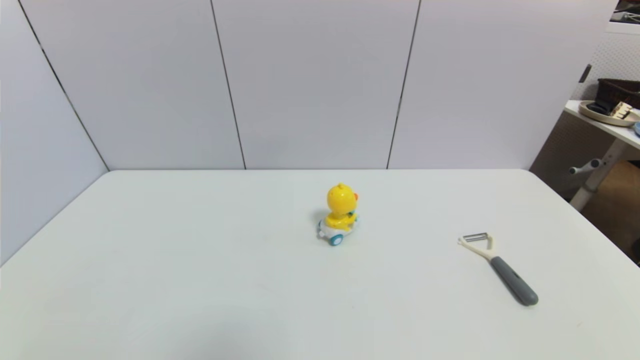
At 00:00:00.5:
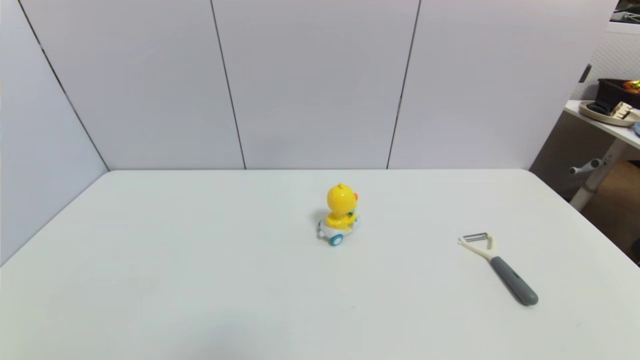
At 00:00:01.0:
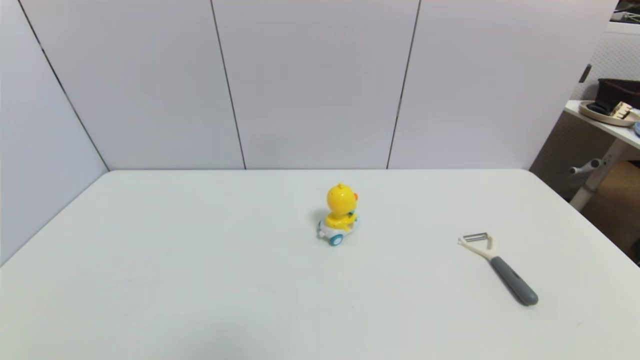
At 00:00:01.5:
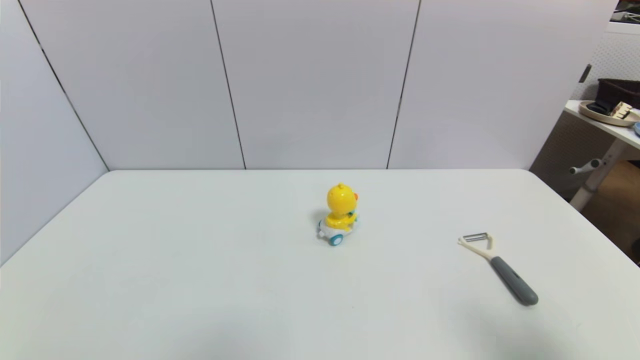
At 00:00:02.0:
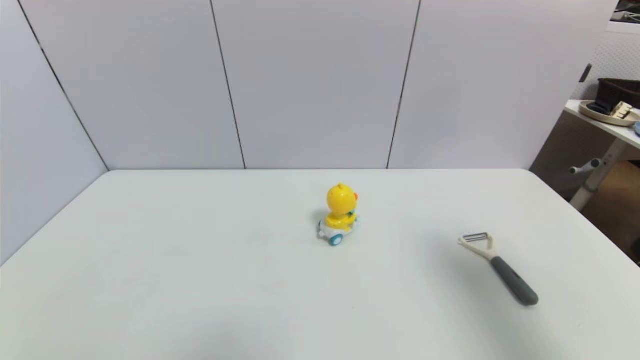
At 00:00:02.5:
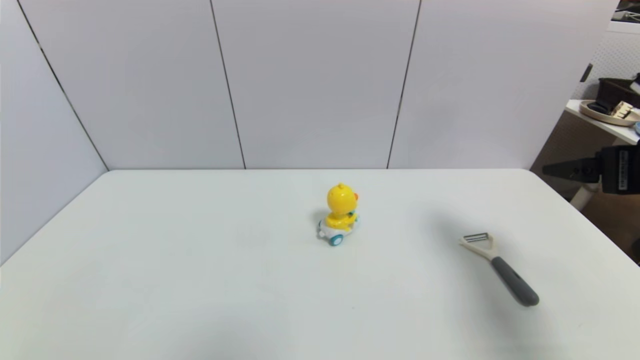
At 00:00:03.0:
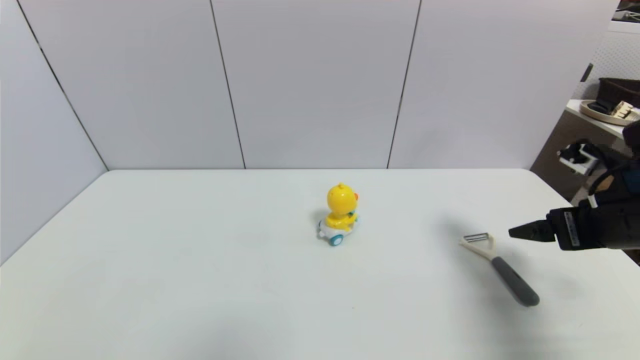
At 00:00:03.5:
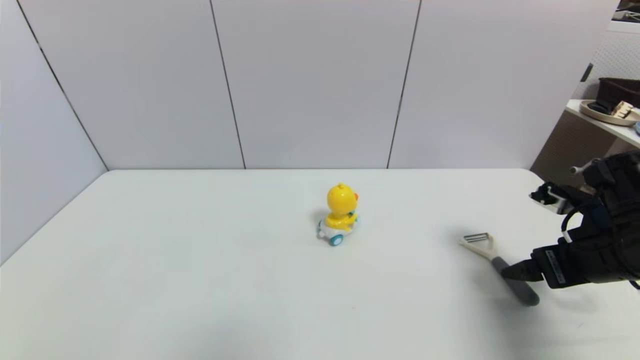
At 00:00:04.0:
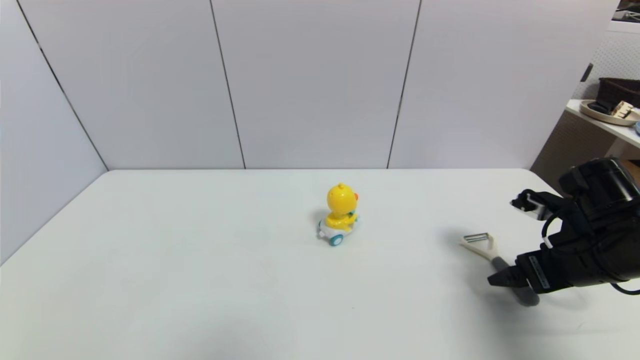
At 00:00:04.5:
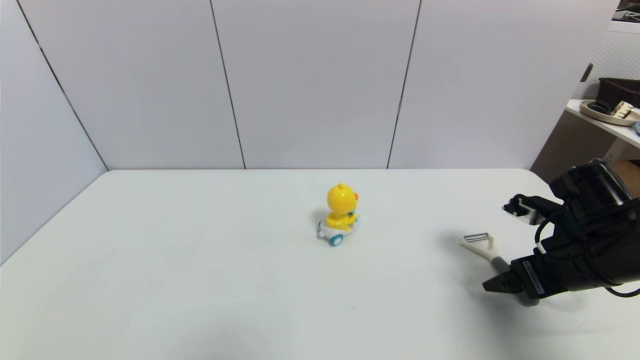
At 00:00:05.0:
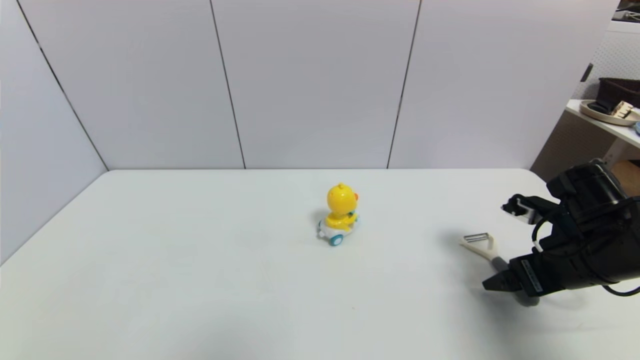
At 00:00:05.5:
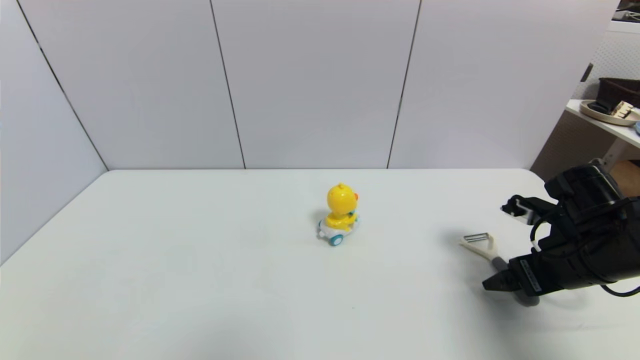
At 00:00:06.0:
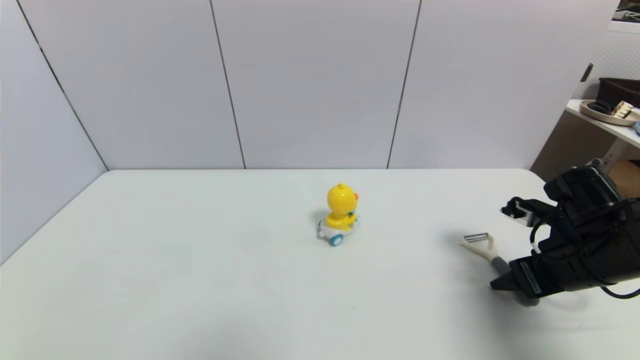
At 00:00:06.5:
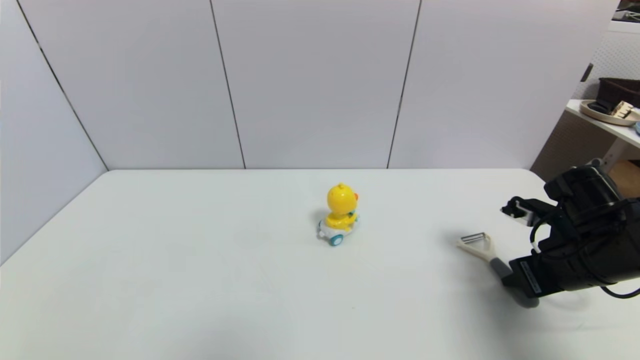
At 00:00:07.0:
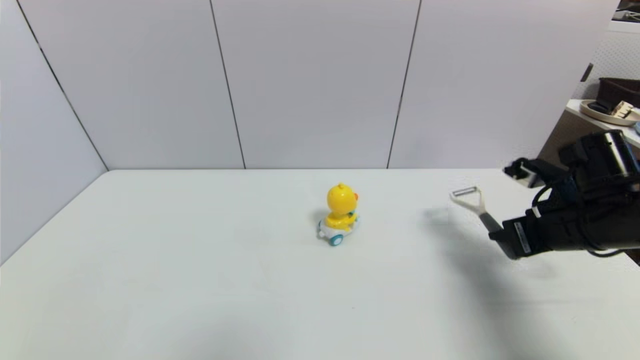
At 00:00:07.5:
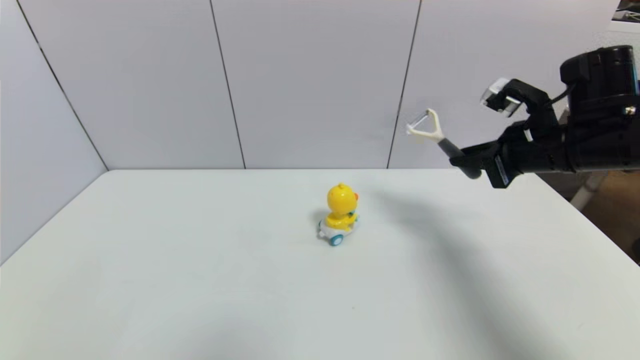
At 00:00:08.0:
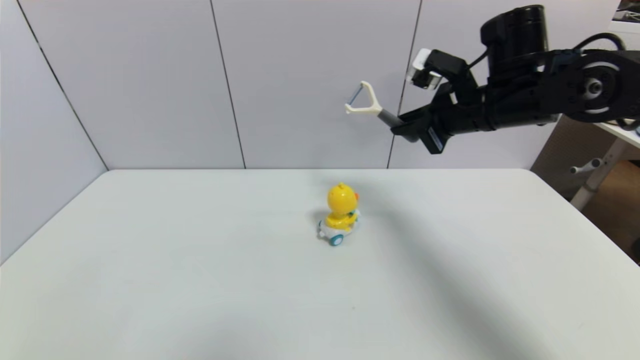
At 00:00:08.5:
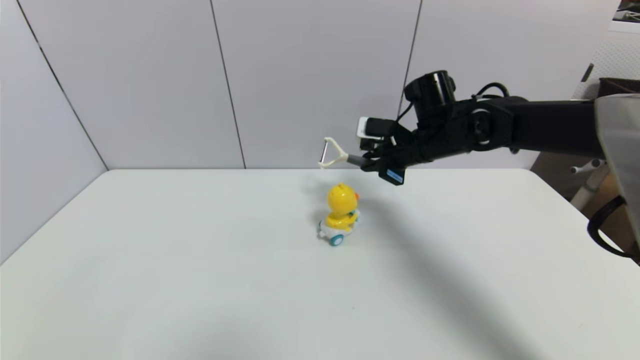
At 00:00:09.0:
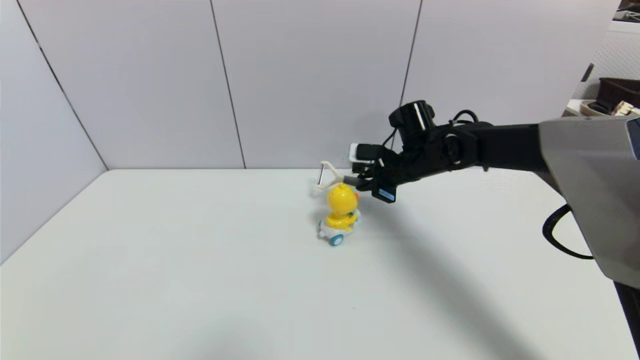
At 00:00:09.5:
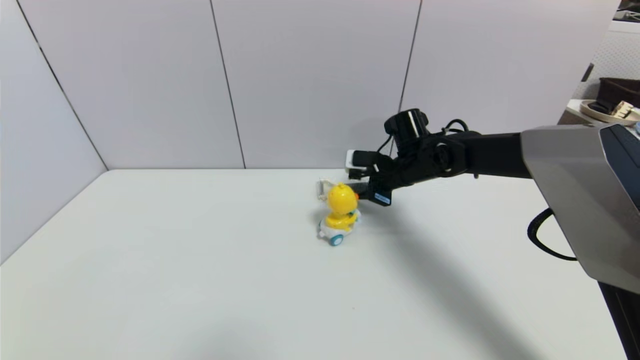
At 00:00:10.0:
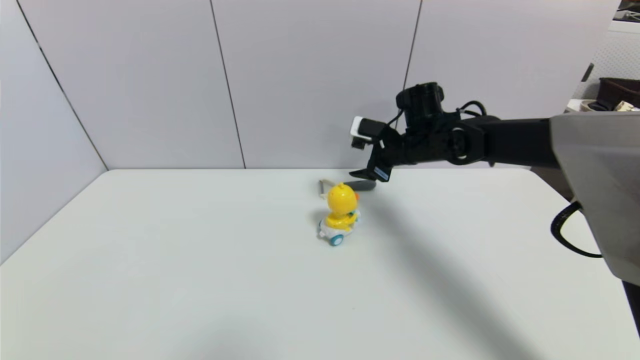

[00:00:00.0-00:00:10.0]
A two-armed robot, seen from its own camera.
Step, 00:00:02.0 to 00:00:06.5: Grasp the peeler with right gripper.
Step, 00:00:07.0 to 00:00:09.5: Place the peeler on the table with right gripper.
00:00:00.0 to 00:00:02.0: The right gripper shifts about 30 cm upward and forward.
00:00:02.0 to 00:00:04.0: The right gripper heads downward and forward, covering about 20 cm.
00:00:04.0 to 00:00:06.0: The right gripper closes up.
00:00:06.0 to 00:00:08.0: The right gripper heads upward, forward and to the left, covering roughly 20 cm, and closes its fingers.
00:00:08.0 to 00:00:10.0: The right gripper shifts some 10 cm downward and forward, and opens up.

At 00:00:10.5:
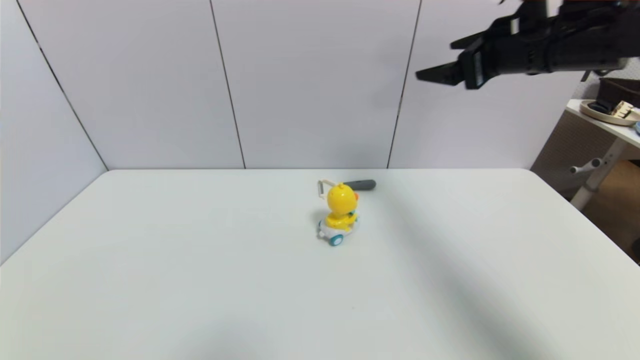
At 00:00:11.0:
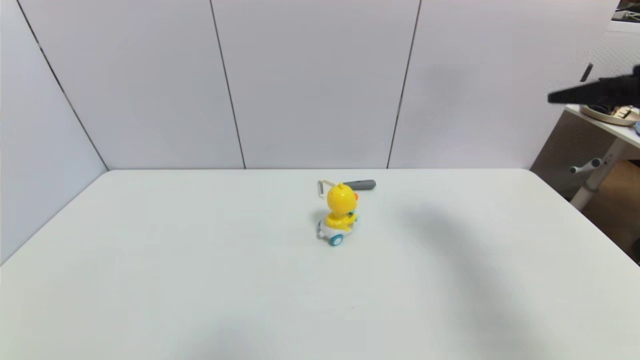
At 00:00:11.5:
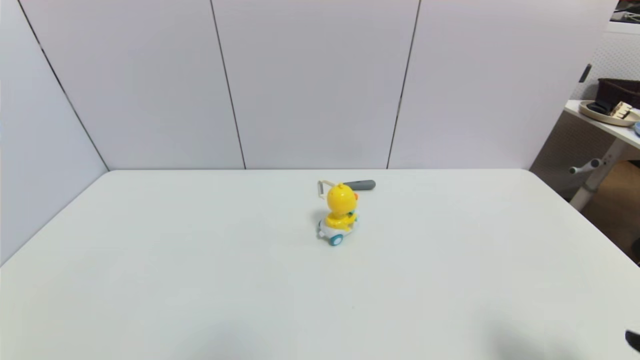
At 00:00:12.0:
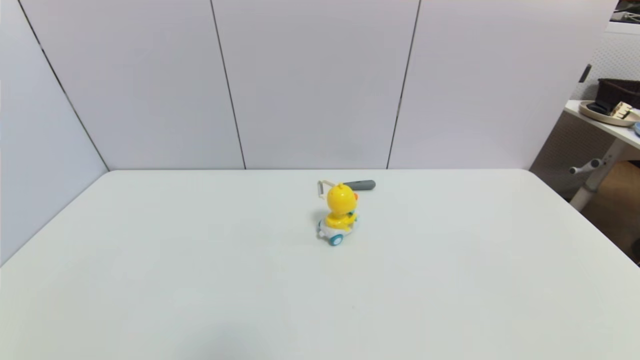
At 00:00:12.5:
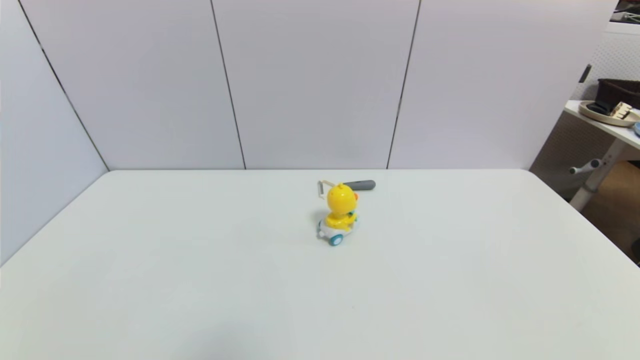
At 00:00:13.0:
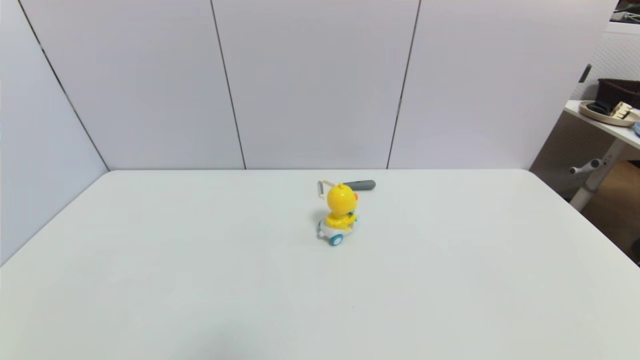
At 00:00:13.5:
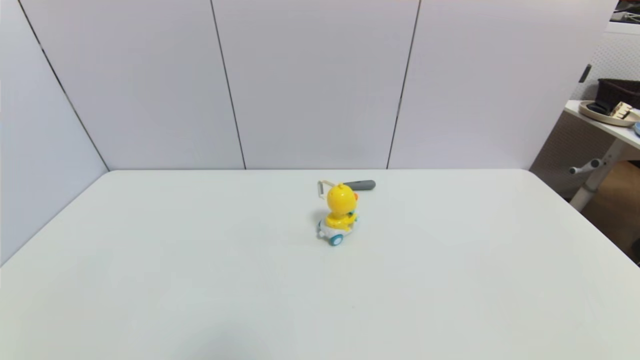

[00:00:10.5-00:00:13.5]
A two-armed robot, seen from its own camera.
00:00:10.5 to 00:00:12.0: The right gripper is displaced backward and downward by about 40 cm.

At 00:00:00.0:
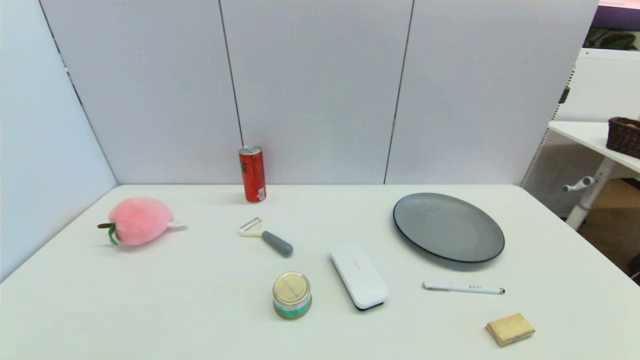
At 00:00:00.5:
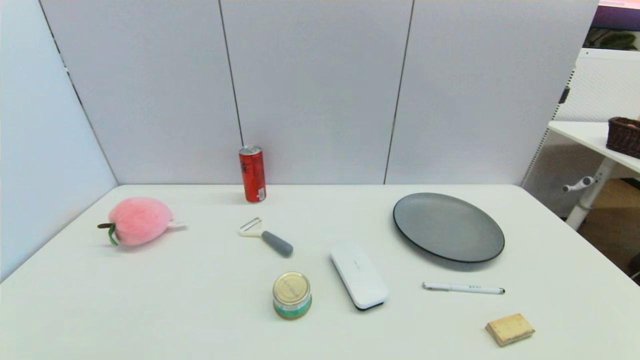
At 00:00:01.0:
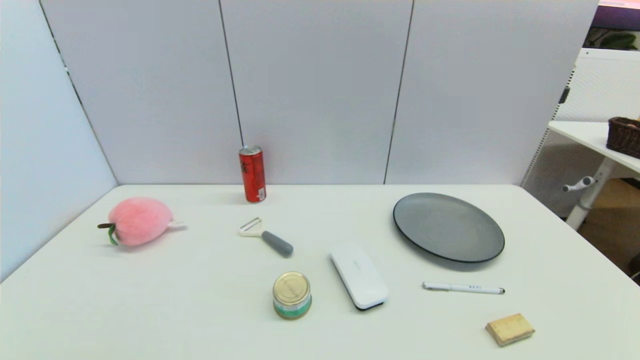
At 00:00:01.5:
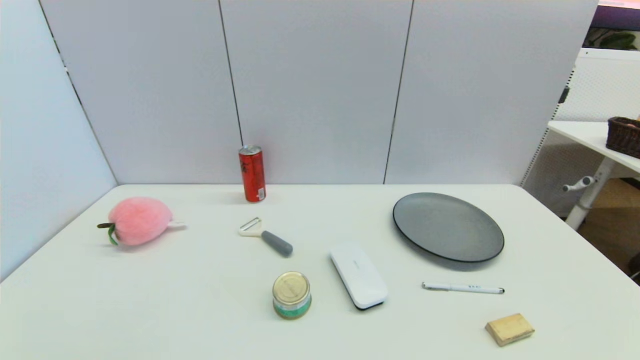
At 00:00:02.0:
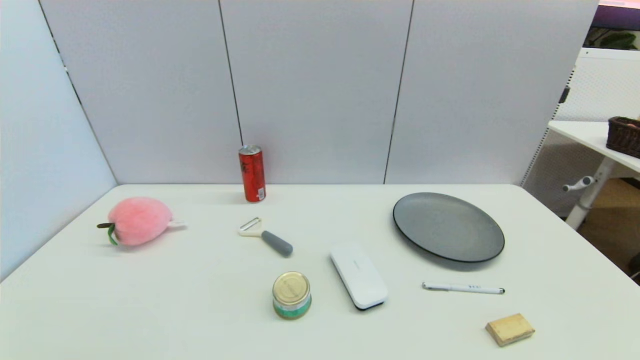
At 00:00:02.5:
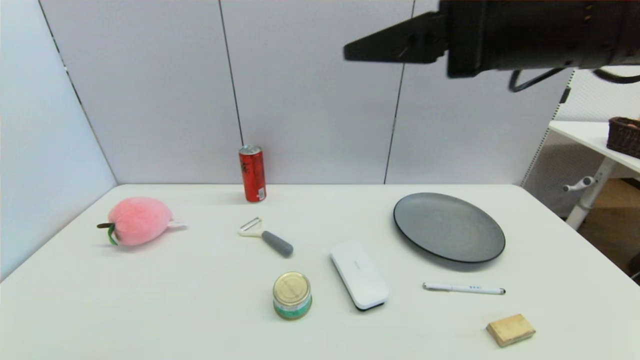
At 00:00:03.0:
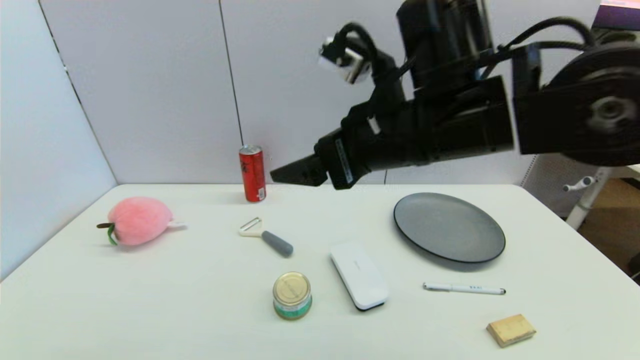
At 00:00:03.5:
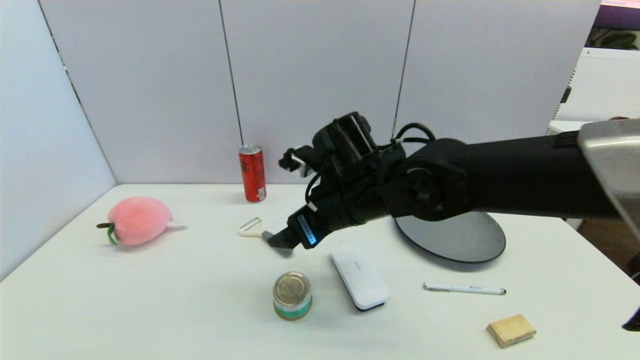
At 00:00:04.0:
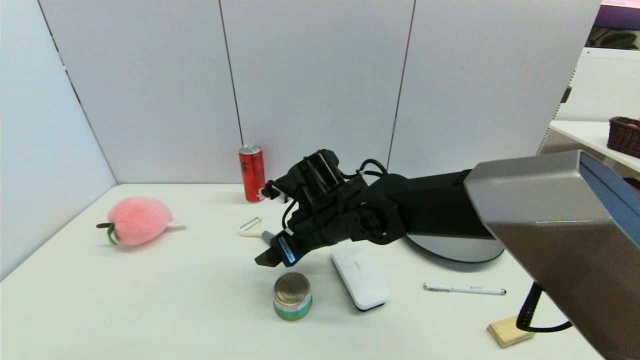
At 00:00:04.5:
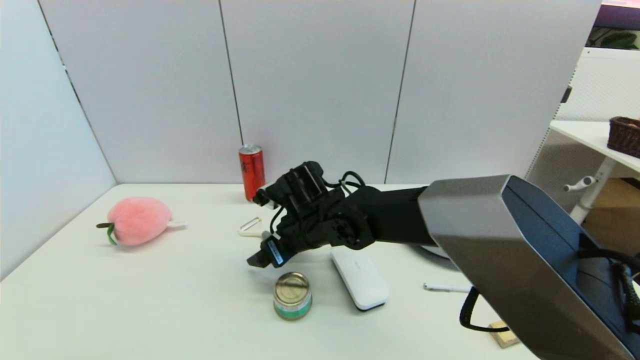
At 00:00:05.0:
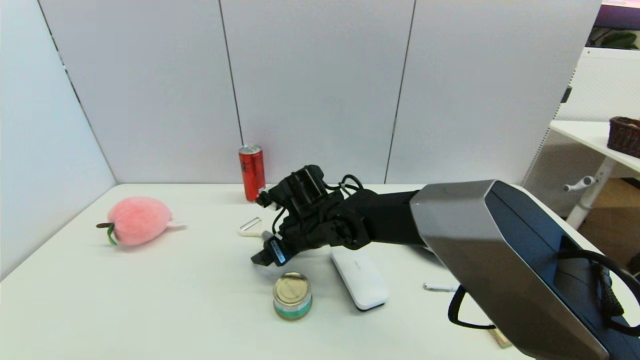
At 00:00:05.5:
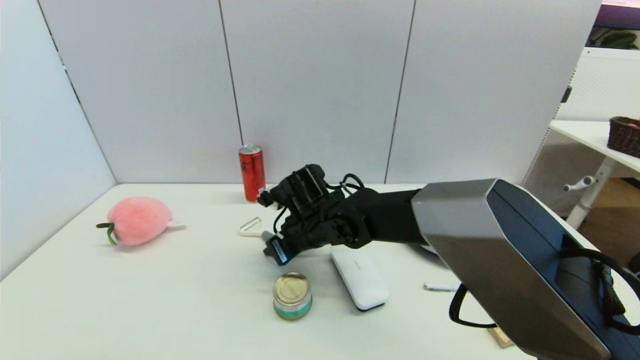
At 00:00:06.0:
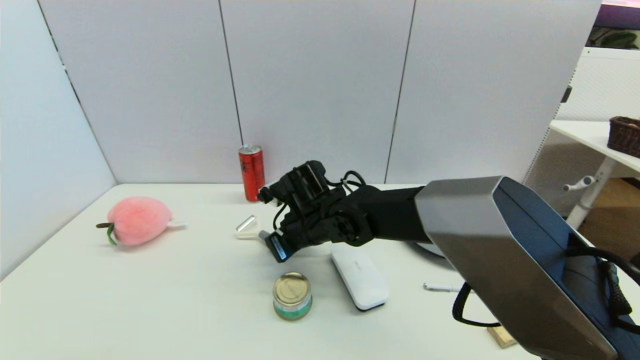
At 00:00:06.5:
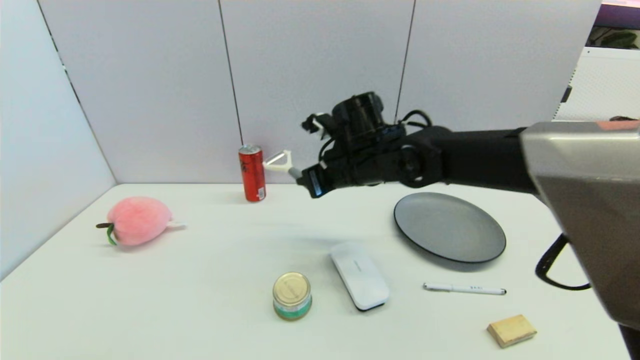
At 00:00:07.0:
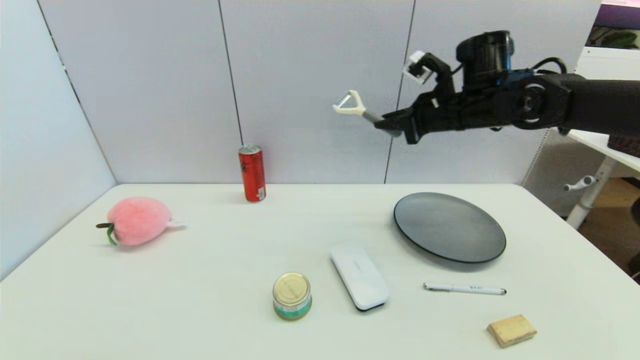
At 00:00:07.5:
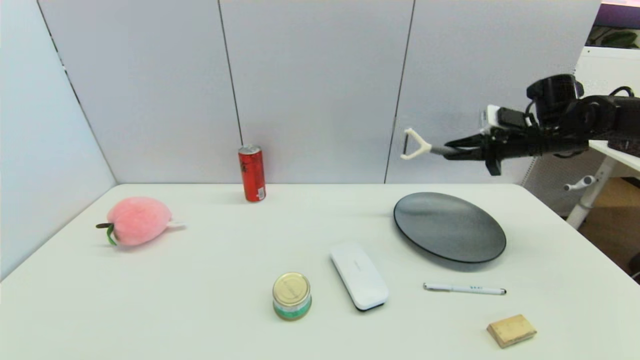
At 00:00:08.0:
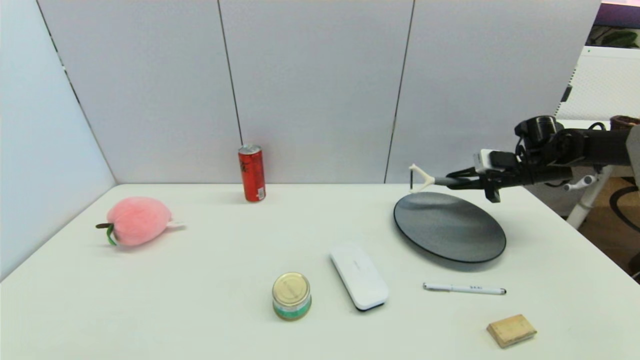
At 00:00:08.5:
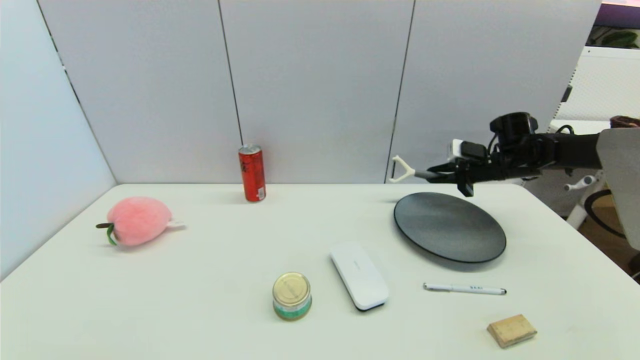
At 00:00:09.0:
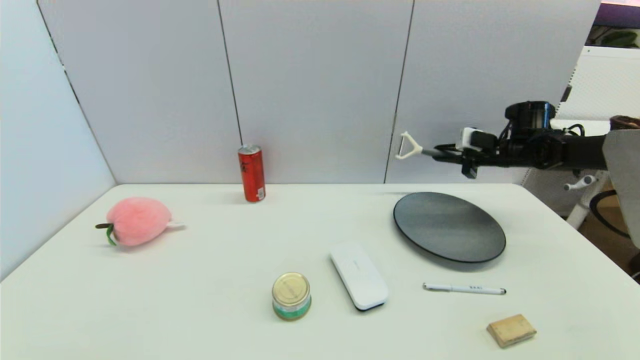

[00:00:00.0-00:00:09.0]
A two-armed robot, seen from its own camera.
Step, 00:00:02.5 to 00:00:06.0: Grasp the peeler with right gripper.
00:00:02.0 to 00:00:04.5: The right gripper moves to the left, downward and forward, approximately 50 cm.
00:00:04.5 to 00:00:07.0: The right gripper shifts approximately 30 cm to the right and upward, and closes up.
00:00:07.0 to 00:00:09.0: The right gripper travels to the right, downward and forward by about 20 cm.
